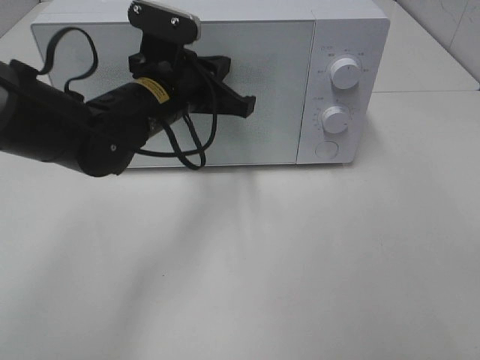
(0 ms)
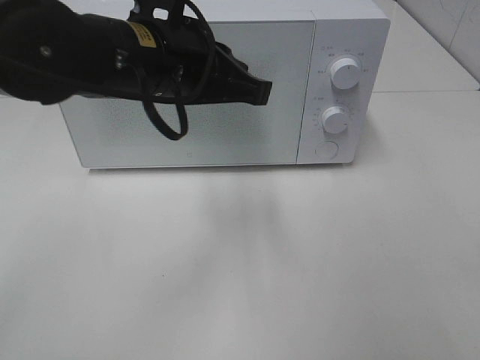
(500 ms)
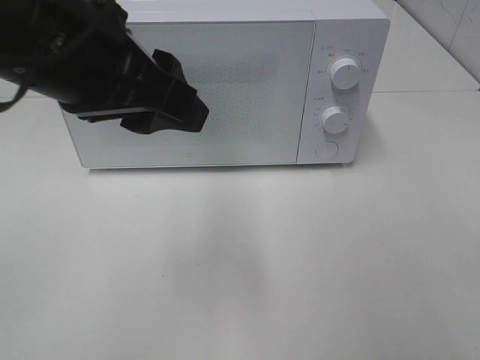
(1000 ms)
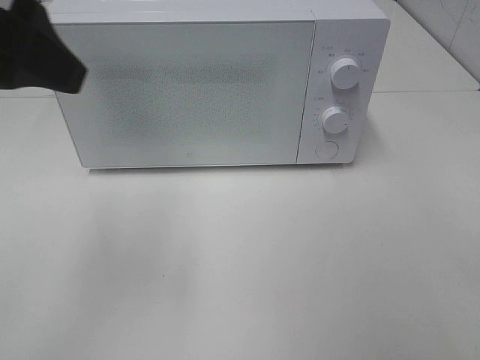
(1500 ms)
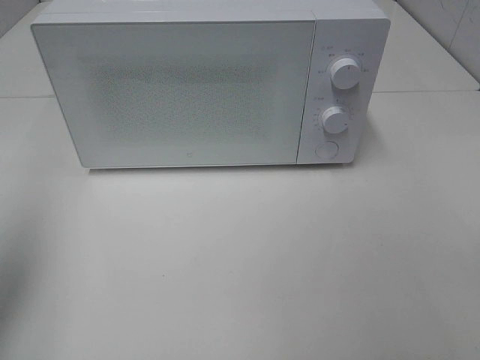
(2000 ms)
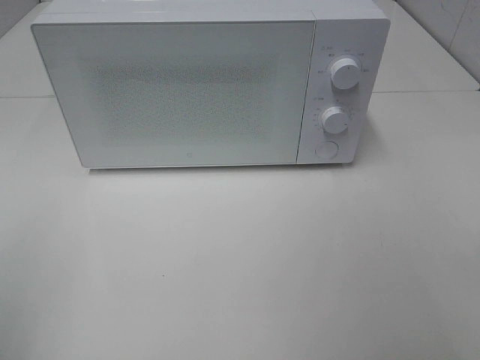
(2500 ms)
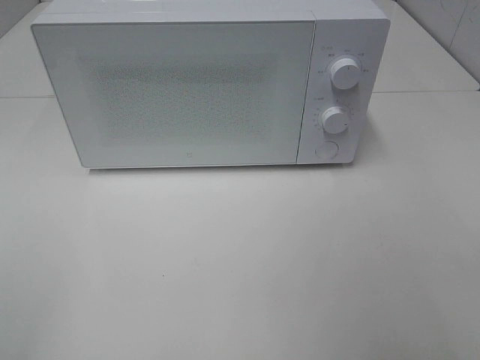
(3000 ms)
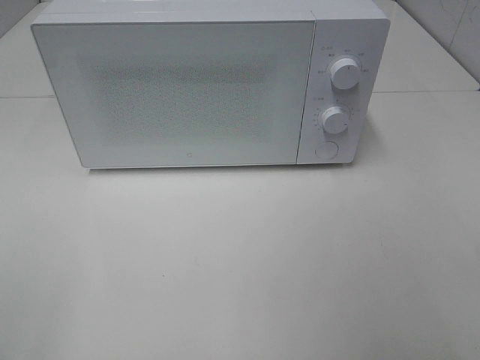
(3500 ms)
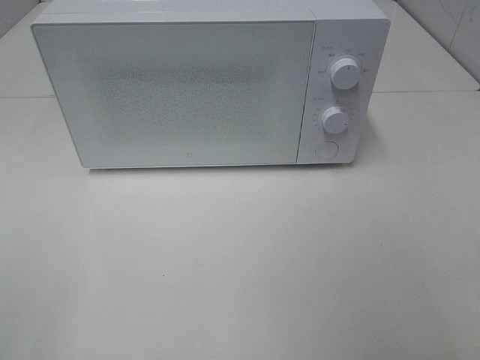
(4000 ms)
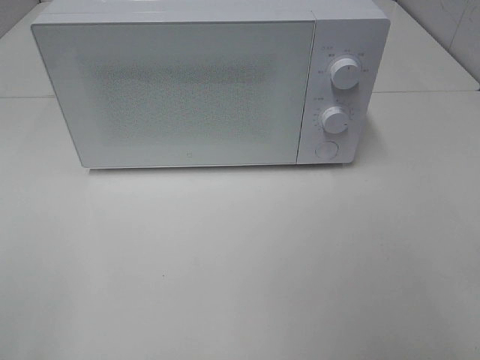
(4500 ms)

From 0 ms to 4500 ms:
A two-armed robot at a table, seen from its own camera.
Task of the whole recording: Heat the burger.
From 0 ms to 2000 ms: The left gripper goes approximately 35 cm to the left, backward and upward, and opens its fingers.
From 2000 ms to 4500 ms: The left gripper is displaced backward by roughly 20 cm.

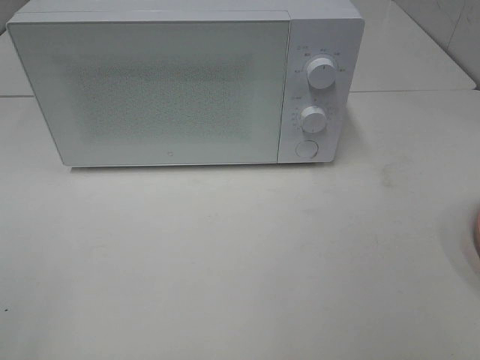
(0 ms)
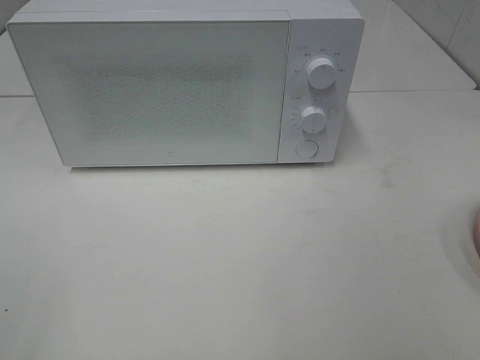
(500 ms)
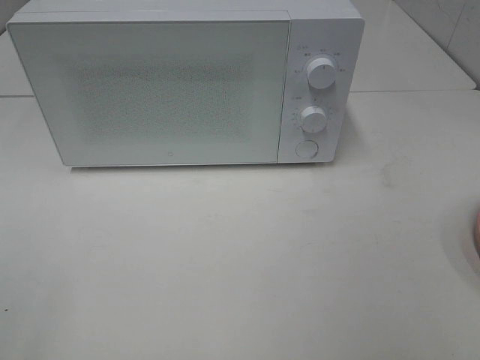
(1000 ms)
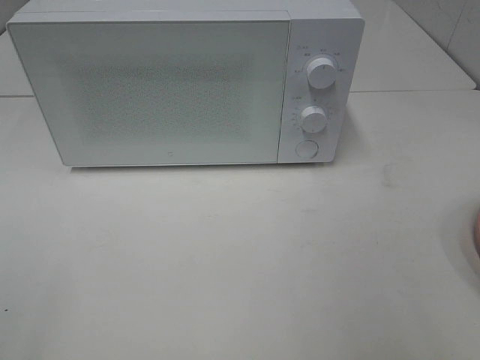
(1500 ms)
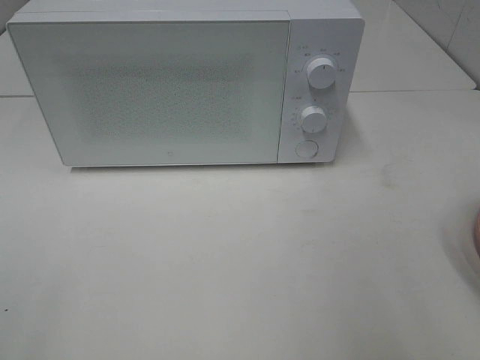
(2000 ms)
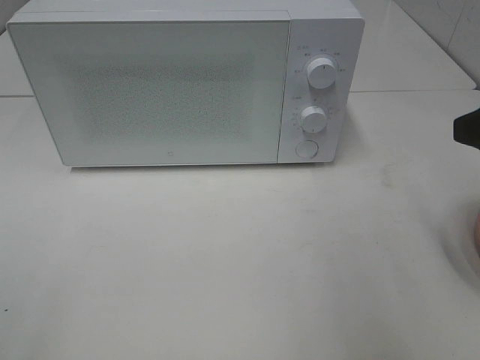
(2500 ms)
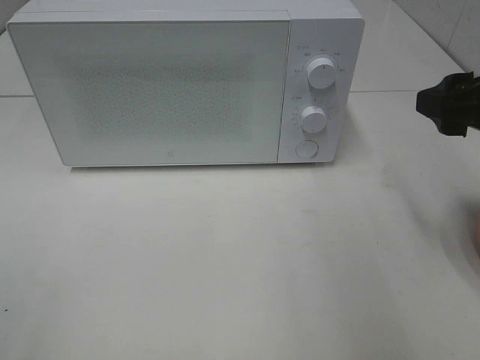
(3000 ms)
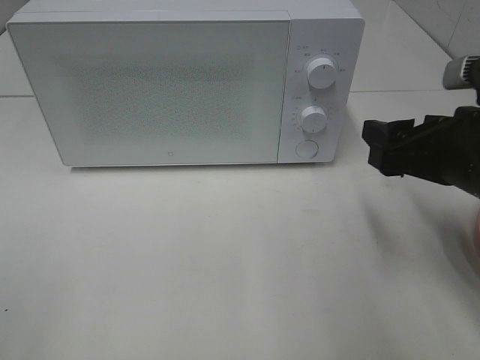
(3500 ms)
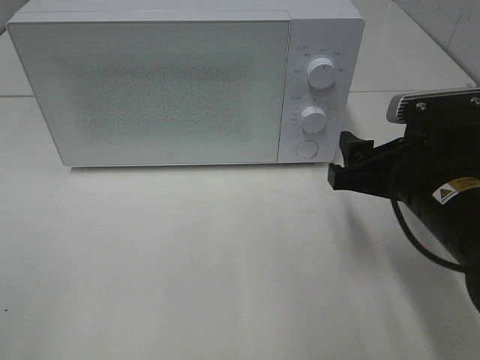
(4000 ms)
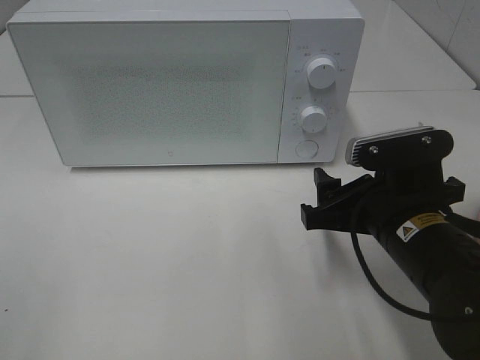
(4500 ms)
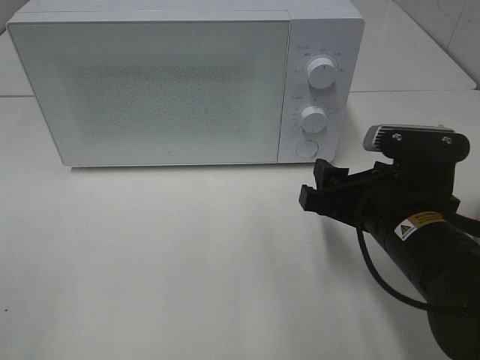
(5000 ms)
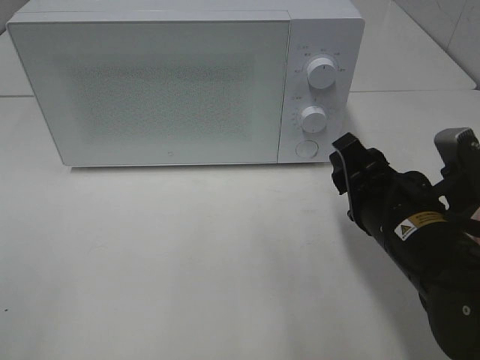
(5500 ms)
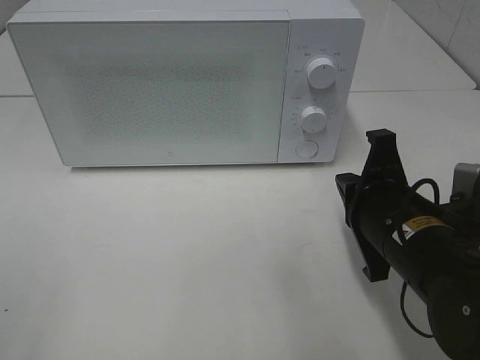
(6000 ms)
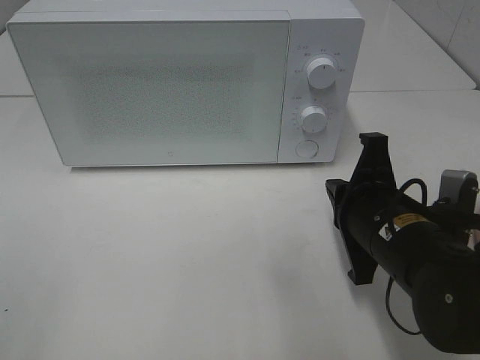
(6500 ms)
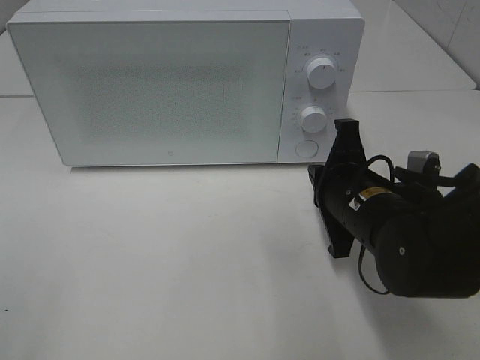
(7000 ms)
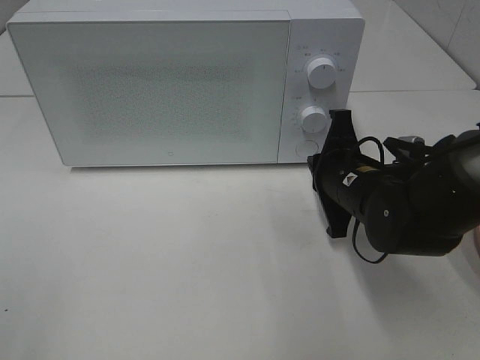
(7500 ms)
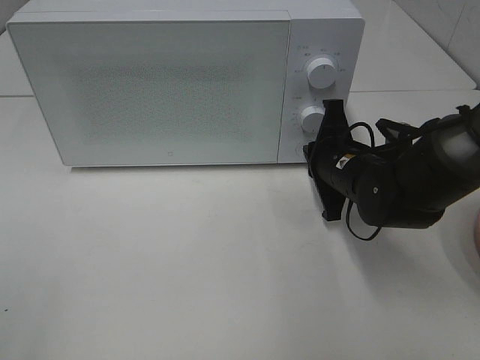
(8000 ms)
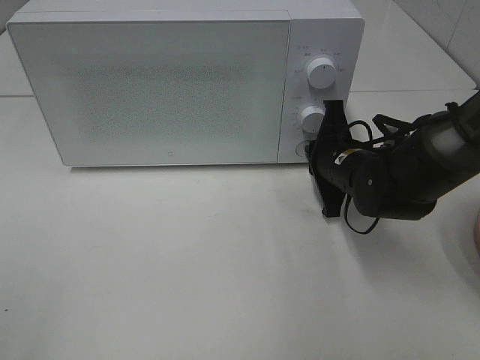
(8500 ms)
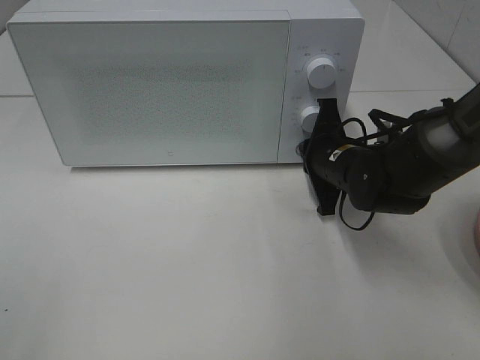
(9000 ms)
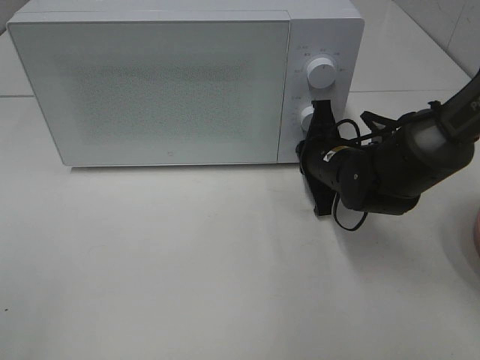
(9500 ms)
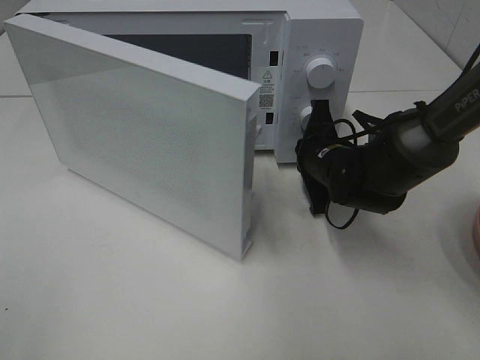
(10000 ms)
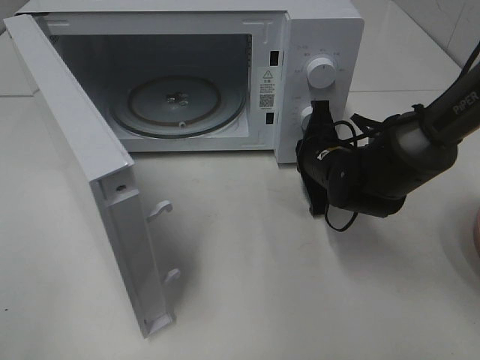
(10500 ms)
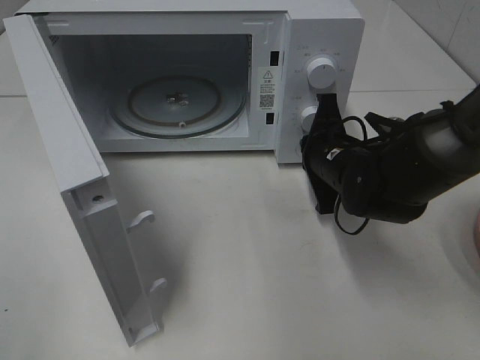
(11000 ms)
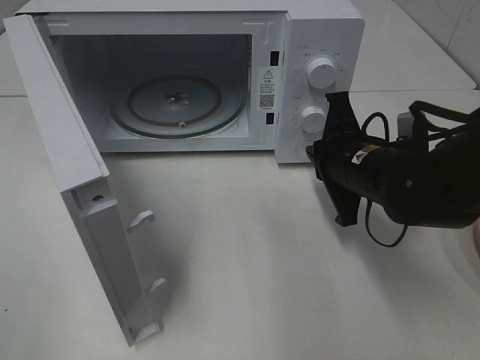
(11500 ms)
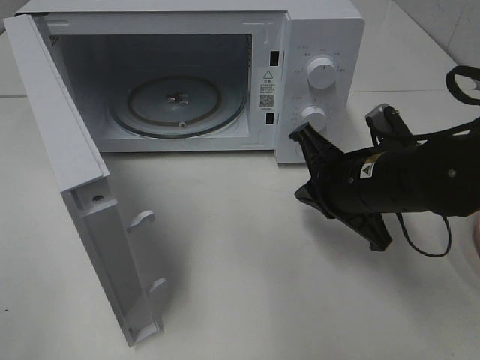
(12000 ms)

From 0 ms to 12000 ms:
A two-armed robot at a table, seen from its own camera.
Task of the whole recording: Heat the burger.
Step, from 0 ms to 11000 ms: Right hand: press the switch.
From 2000 ms to 4000 ms: The right gripper heads downward, to the left and forward, covering some 20 cm.
From 4000 ms to 6000 ms: The right gripper closes.
From 6000 ms to 8000 ms: The right gripper moves forward, about 15 cm.
From 10000 ms to 12000 ms: The right gripper moves backward and upward, approximately 10 cm.

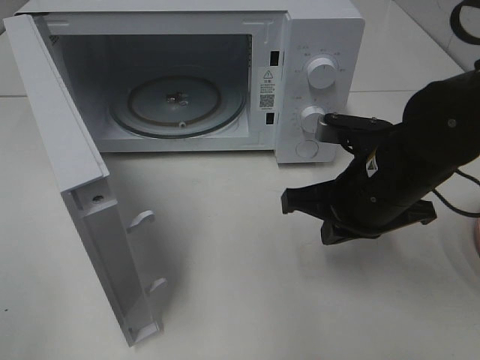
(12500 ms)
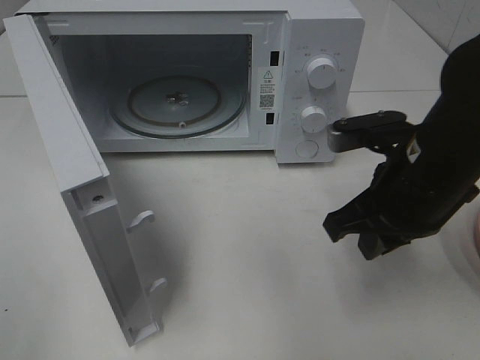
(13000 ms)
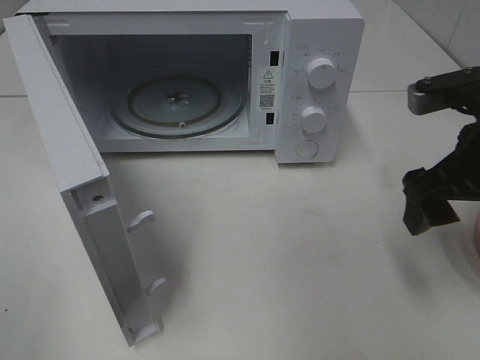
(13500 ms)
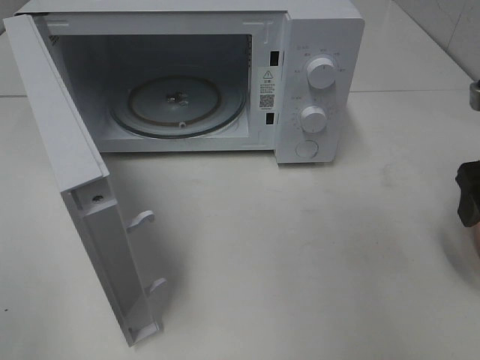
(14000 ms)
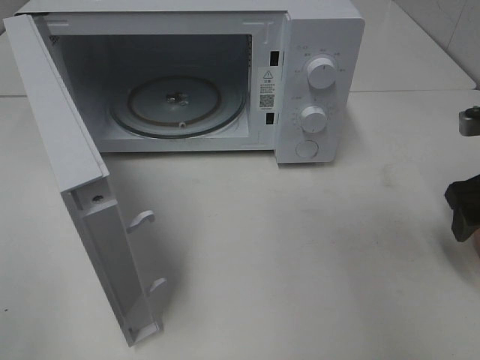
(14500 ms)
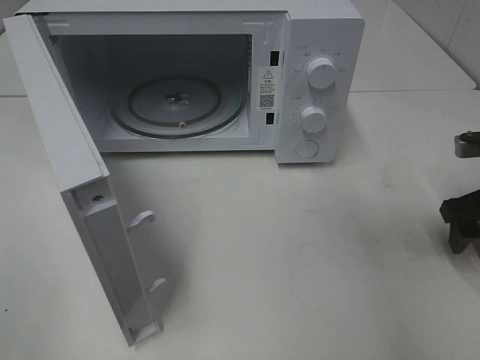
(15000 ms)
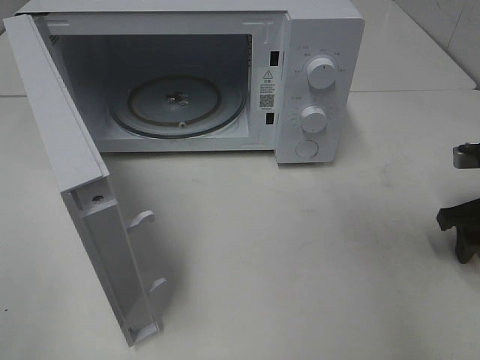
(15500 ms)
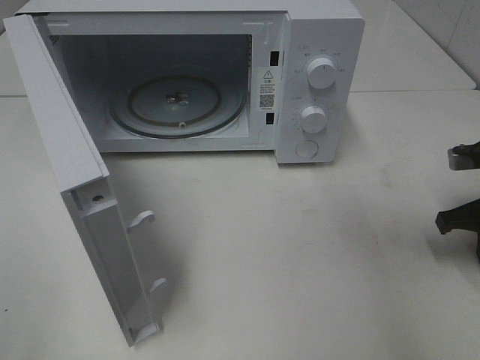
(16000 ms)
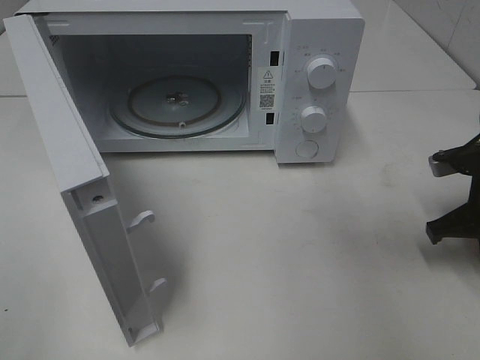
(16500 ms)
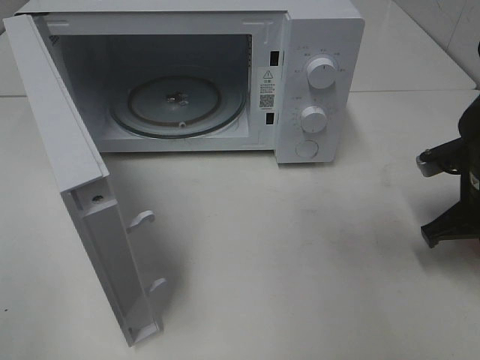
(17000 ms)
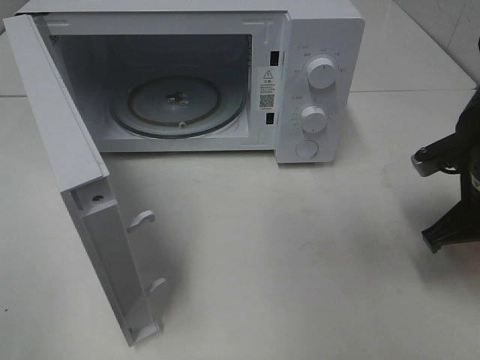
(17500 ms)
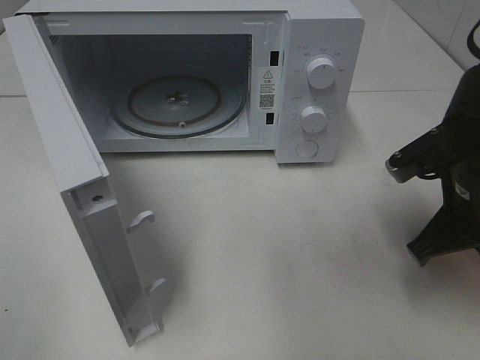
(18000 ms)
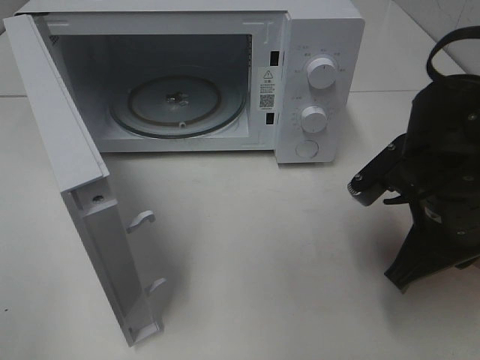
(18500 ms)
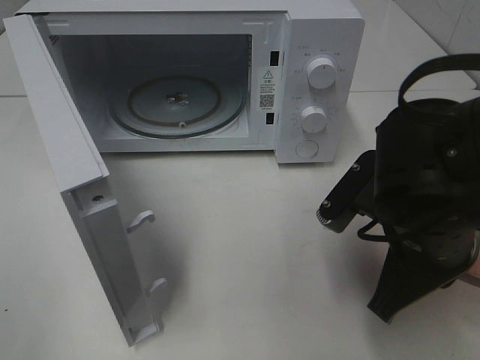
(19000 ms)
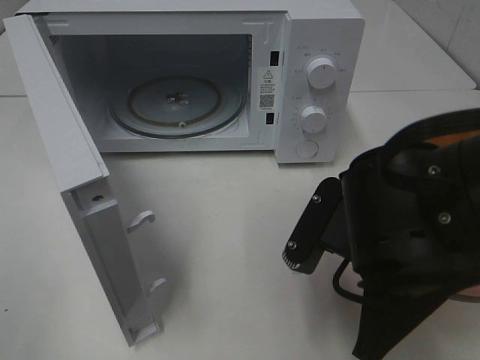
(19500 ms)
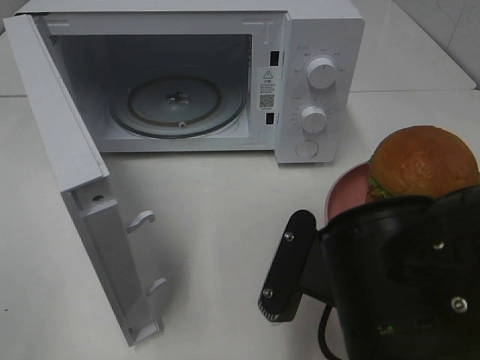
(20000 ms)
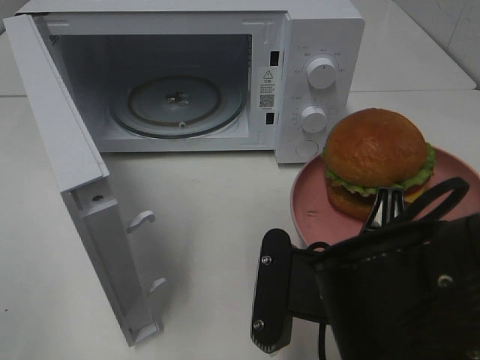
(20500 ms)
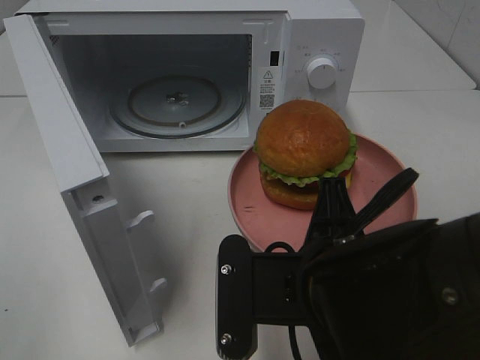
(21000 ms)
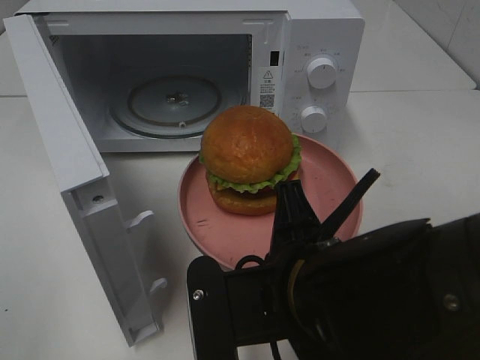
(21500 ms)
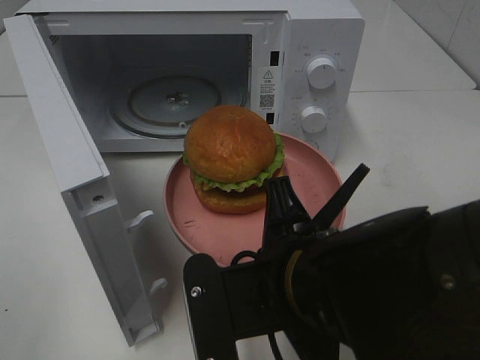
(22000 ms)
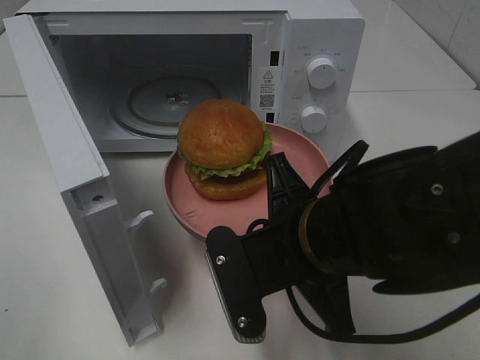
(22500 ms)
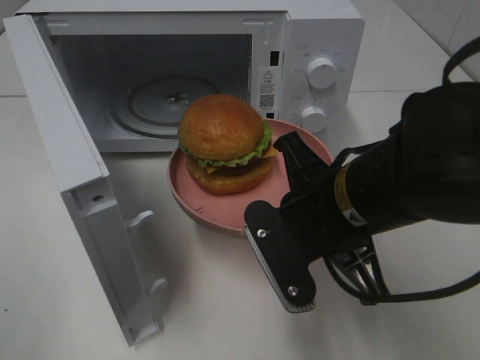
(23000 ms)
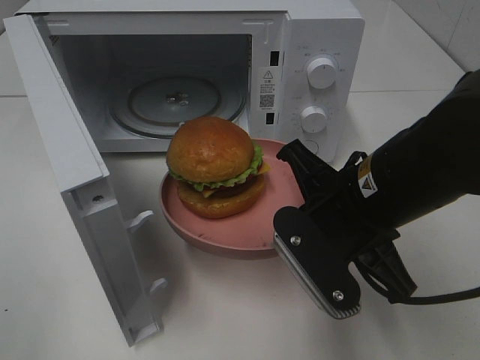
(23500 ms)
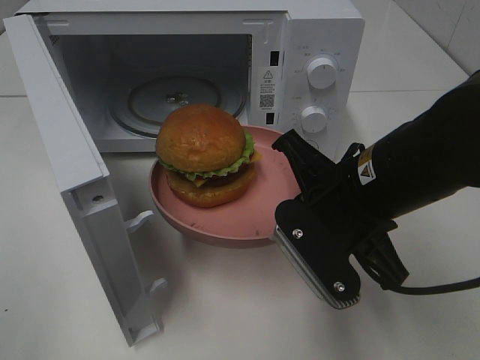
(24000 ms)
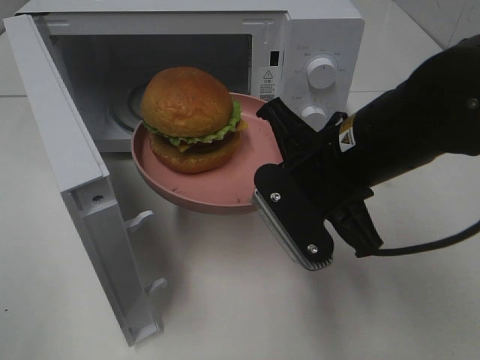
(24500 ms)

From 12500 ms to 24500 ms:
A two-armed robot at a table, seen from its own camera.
Task of the whole recording: Heat the burger.
Step, from 12500 ms to 16000 ms: Right hand: grab the plate with the hamburger.
From 12500 ms to 14500 ms: The right gripper goes about 15 cm to the right, and opens up.
From 14500 ms to 16500 ms: The right gripper goes approximately 5 cm downward, and closes up.
From 16500 ms to 18500 ms: The right gripper goes roughly 15 cm to the left and backward.
From 18500 ms to 20500 ms: The right gripper travels backward and to the left by some 15 cm.
From 20500 ms to 22500 ms: The right gripper shifts some 5 cm forward.
From 22500 ms to 24500 ms: The right gripper travels forward by roughly 5 cm.